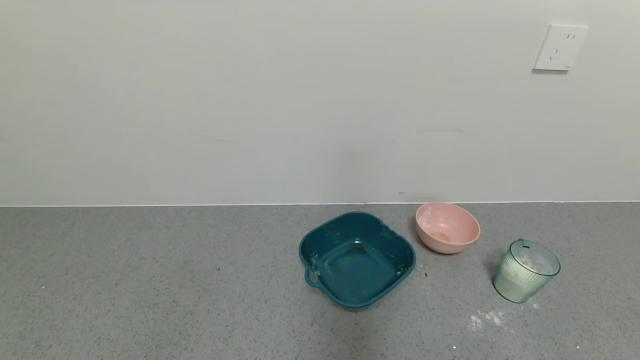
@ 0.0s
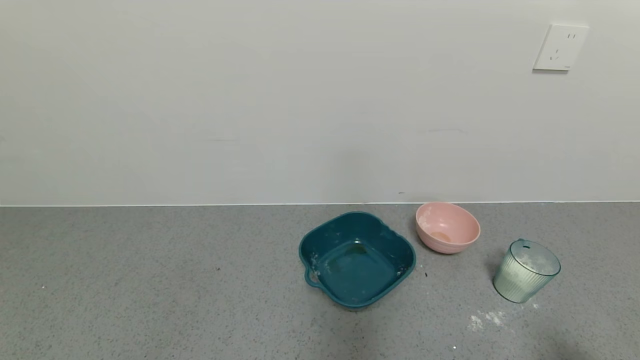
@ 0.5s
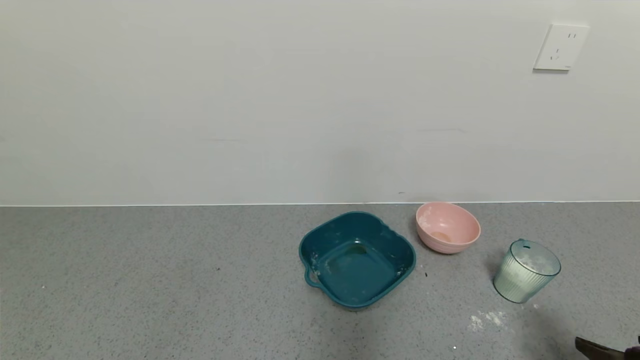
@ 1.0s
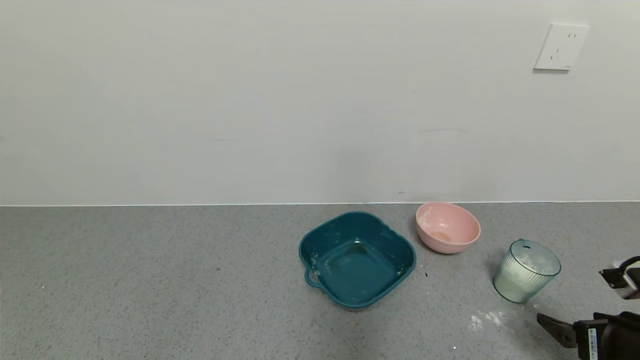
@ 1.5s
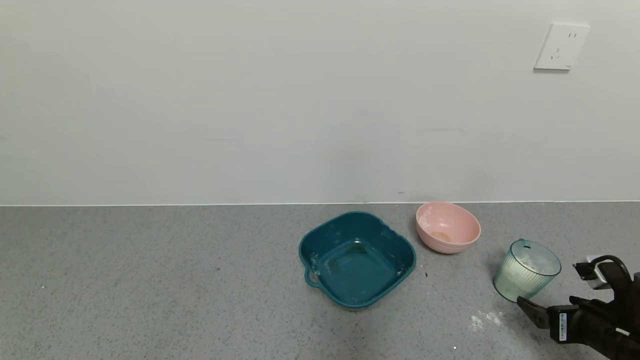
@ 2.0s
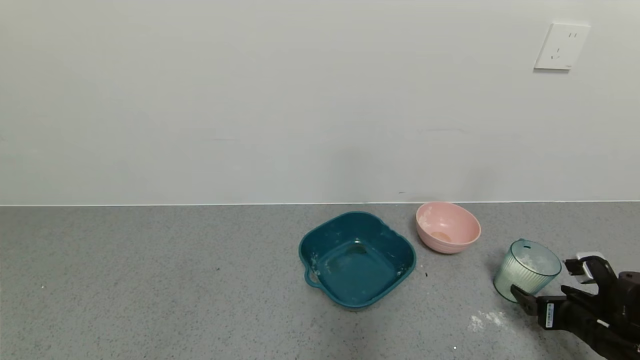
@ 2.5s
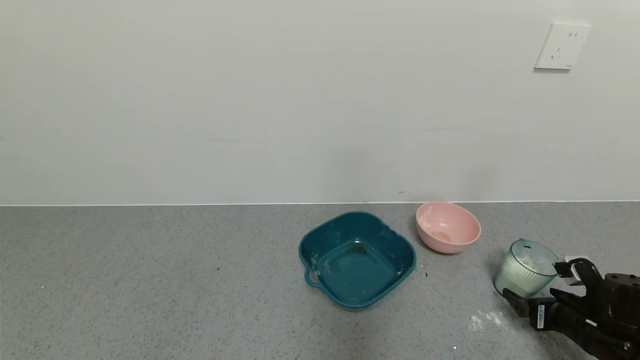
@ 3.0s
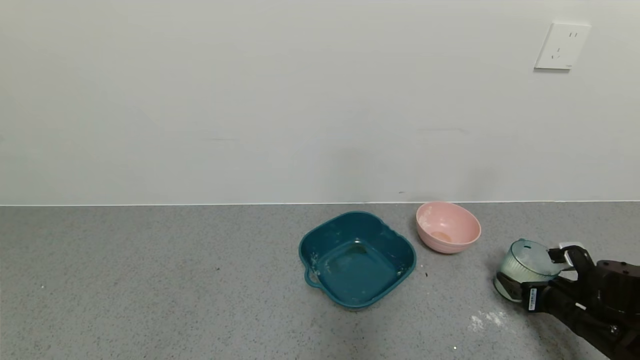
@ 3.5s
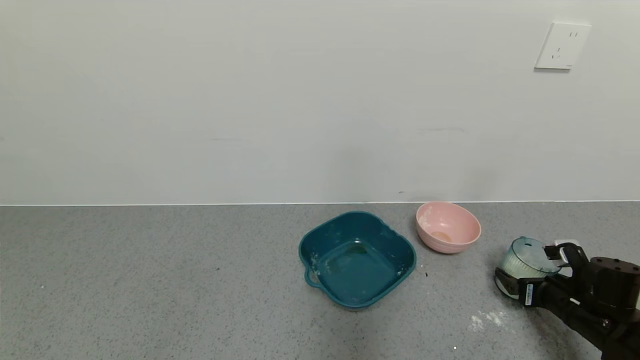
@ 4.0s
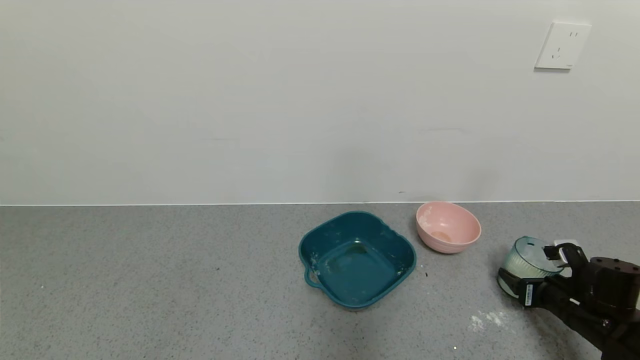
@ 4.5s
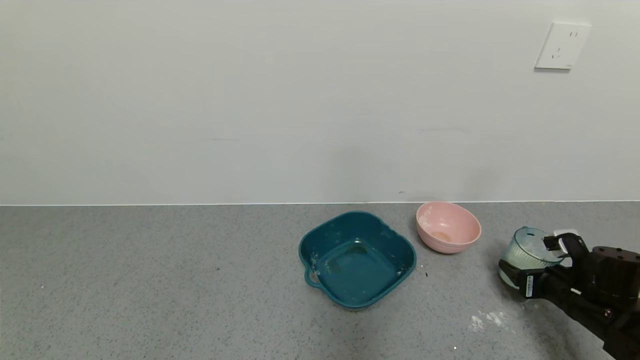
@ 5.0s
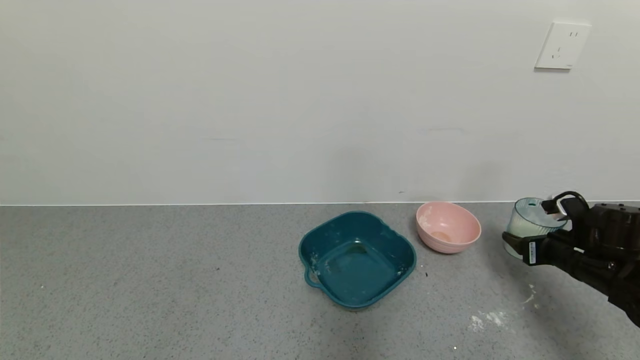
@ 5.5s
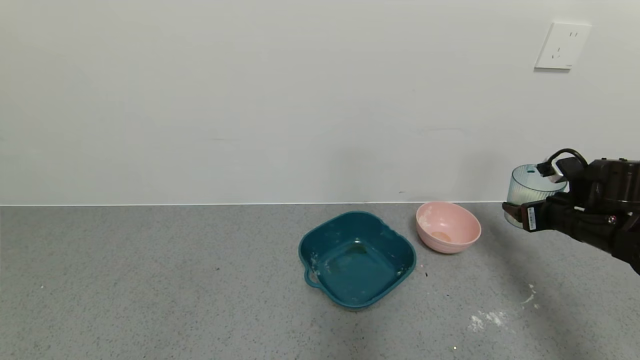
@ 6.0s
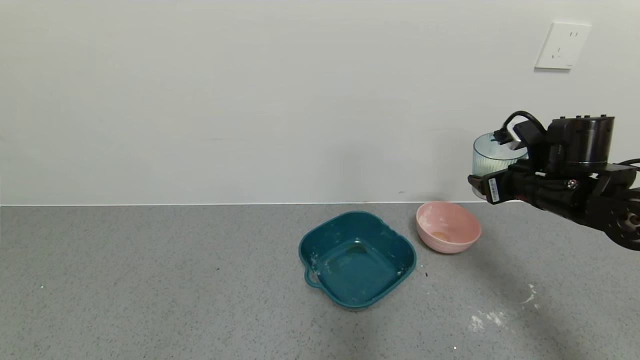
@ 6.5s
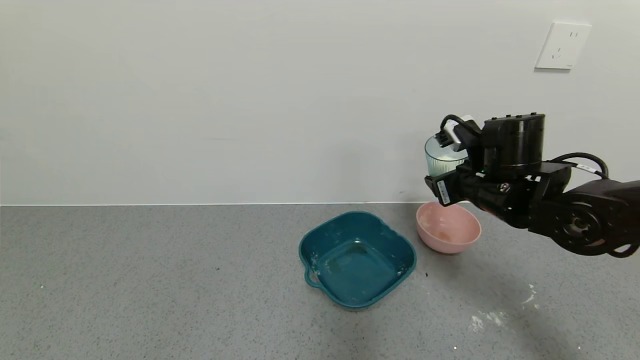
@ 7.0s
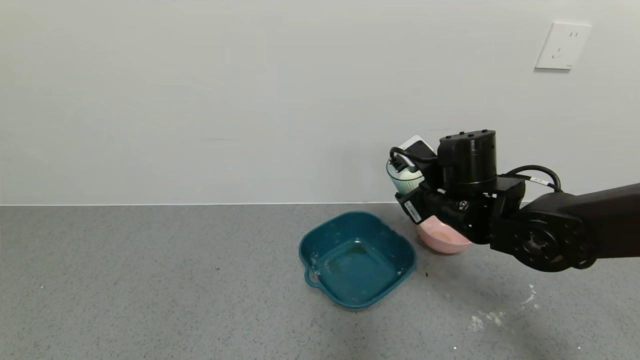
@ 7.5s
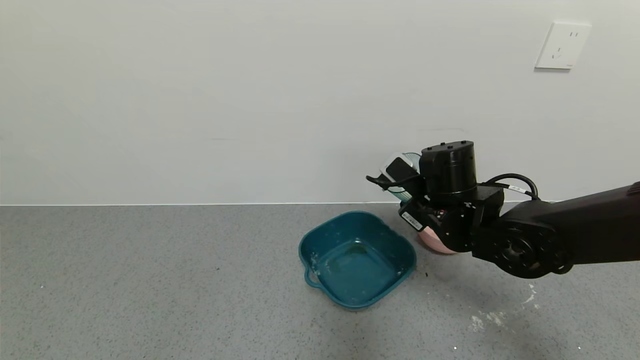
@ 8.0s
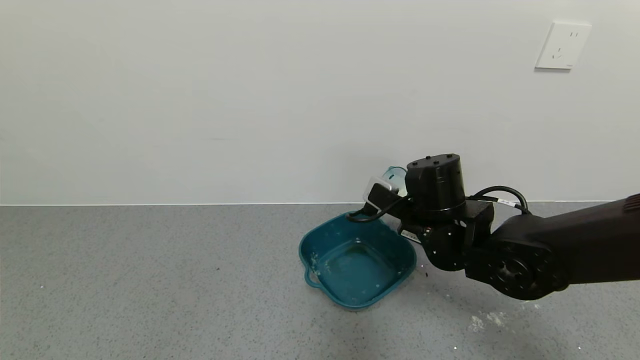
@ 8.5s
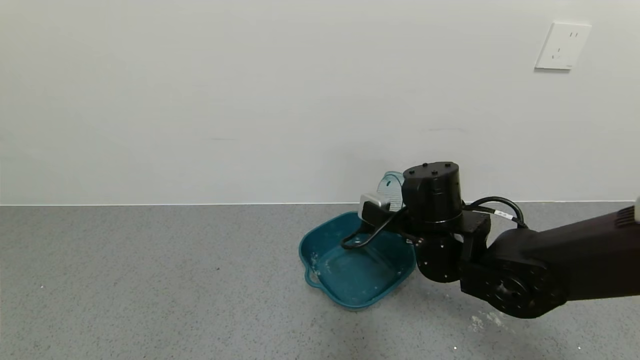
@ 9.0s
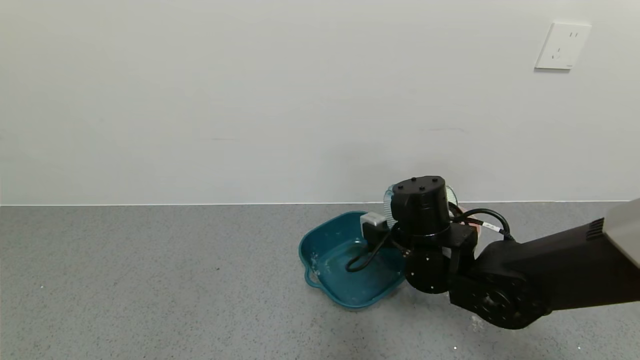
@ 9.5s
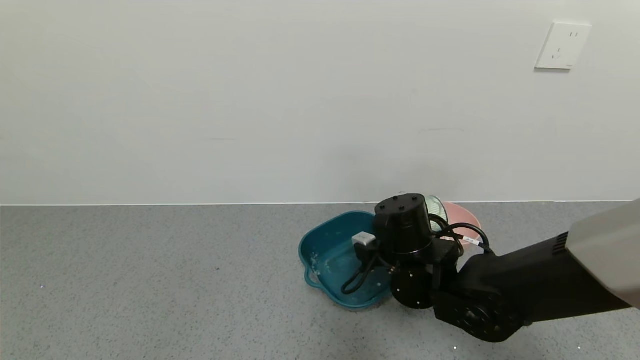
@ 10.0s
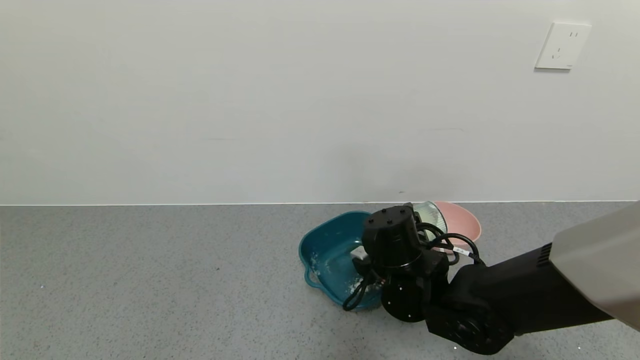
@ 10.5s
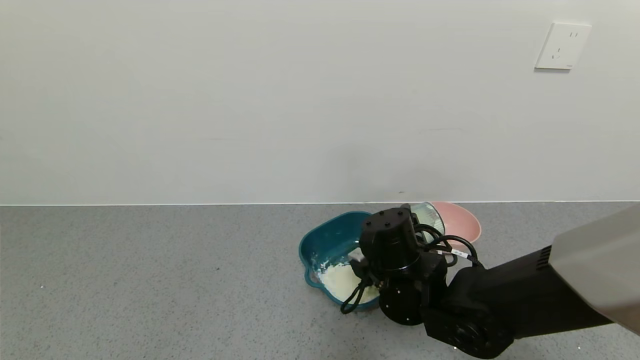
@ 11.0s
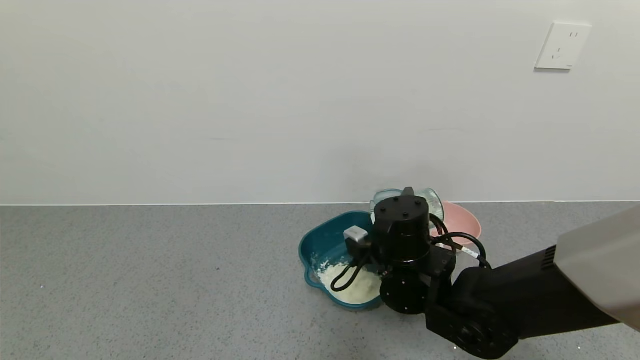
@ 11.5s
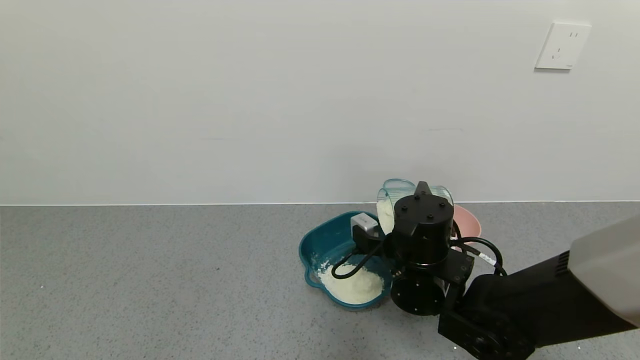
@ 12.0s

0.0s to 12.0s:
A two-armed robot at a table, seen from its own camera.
Task of the whole recording: use a gripper to pick up the cup and pour the powder into a bowl or tray.
Step, 0.0s to 4.0s: Grasp the glass of powder with the right gripper.
0.0s to 2.0s: The right gripper travels forward by approximately 20 cm.
2.0s to 4.0s: The right gripper heads forward, covering approximately 5 cm.
4.0s to 6.0s: The right gripper heads upward and forward, covering about 15 cm, and closes up.
6.0s to 8.0s: The right gripper moves to the left, roughly 25 cm.
8.0s to 10.0s: The right gripper is displaced downward by some 5 cm.
10.0s to 12.0s: There are only small adjustments of the grippers.

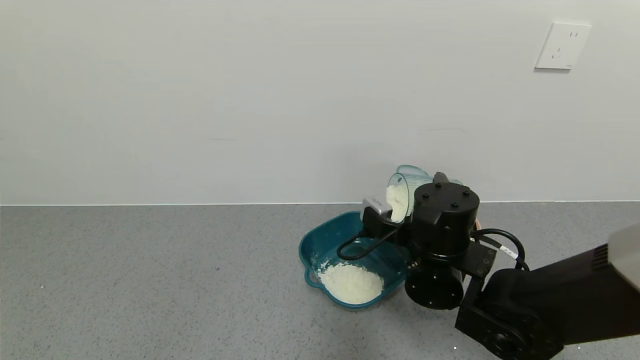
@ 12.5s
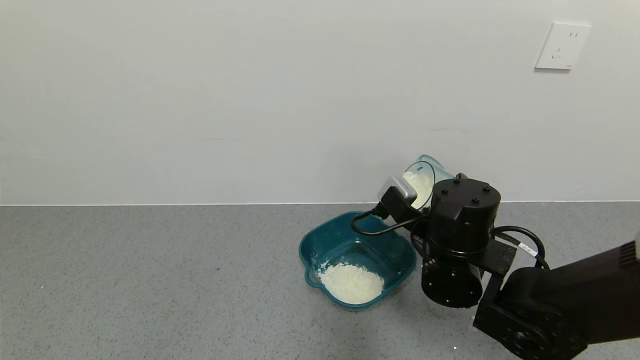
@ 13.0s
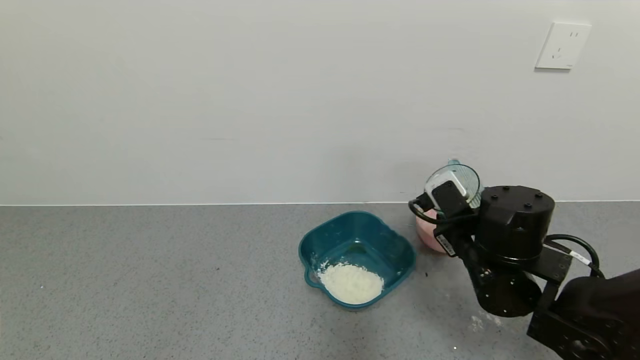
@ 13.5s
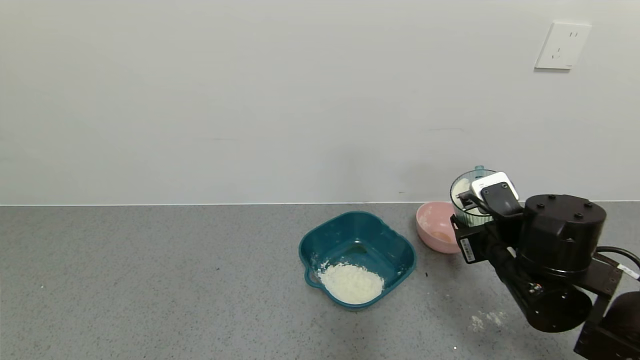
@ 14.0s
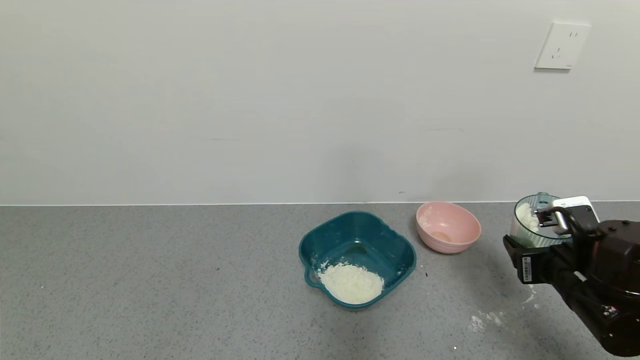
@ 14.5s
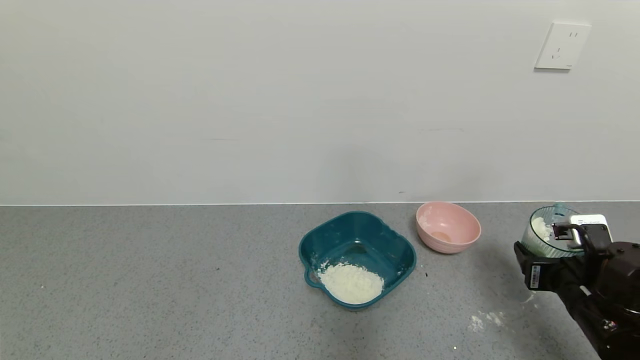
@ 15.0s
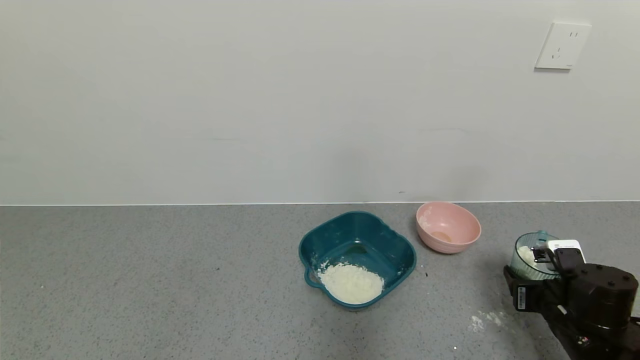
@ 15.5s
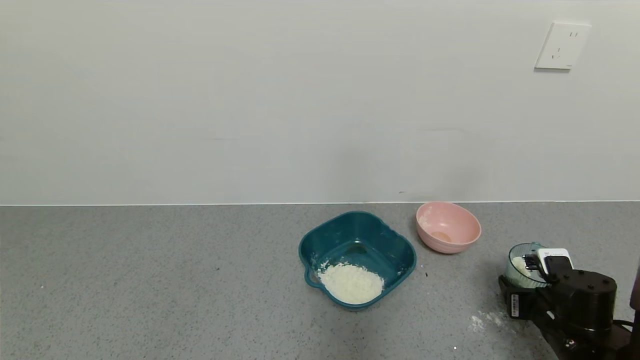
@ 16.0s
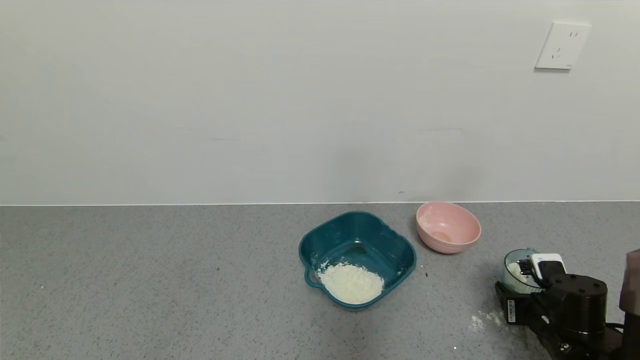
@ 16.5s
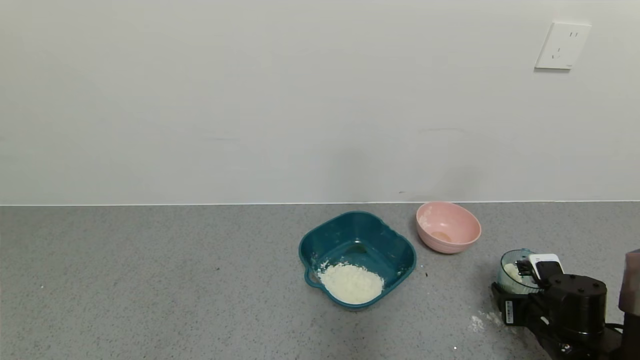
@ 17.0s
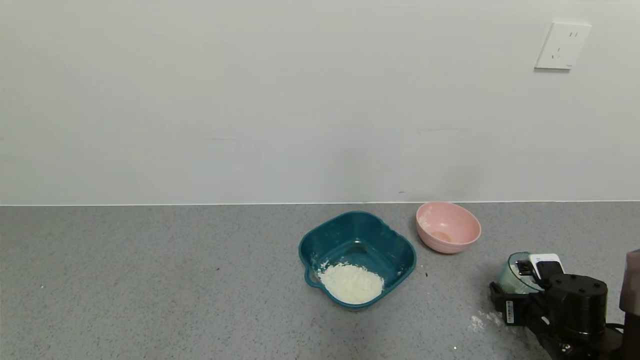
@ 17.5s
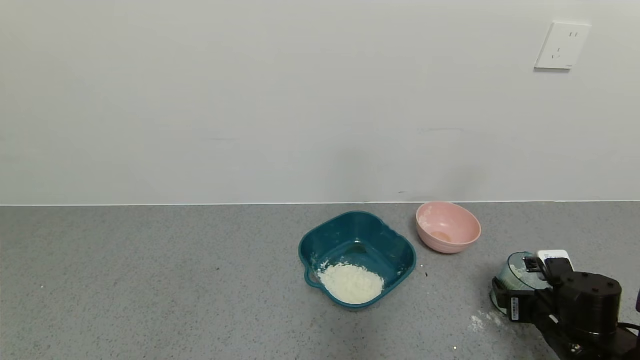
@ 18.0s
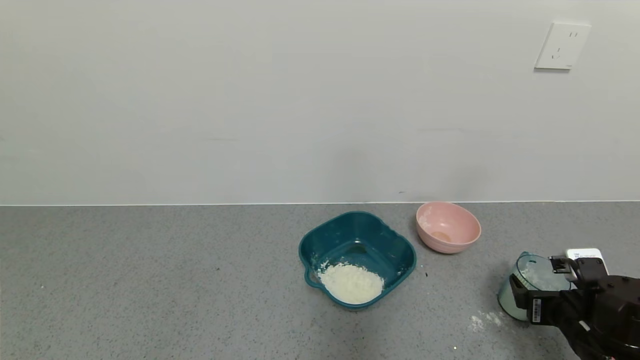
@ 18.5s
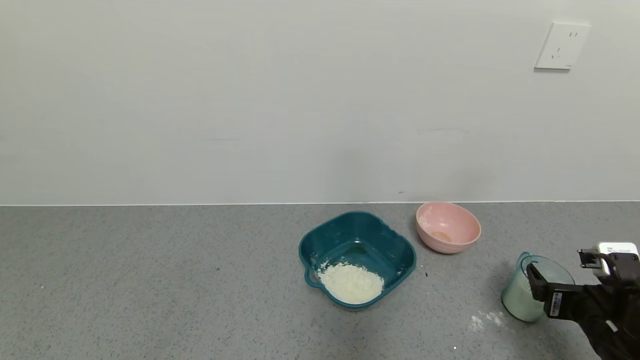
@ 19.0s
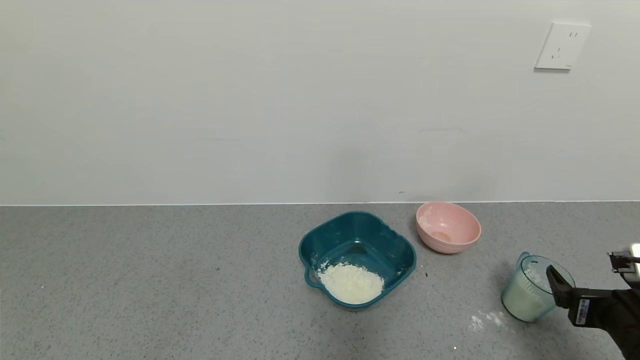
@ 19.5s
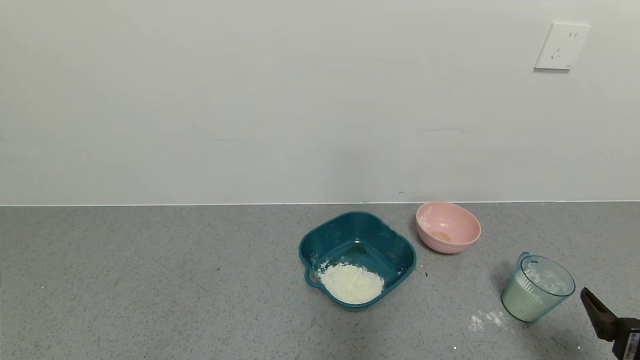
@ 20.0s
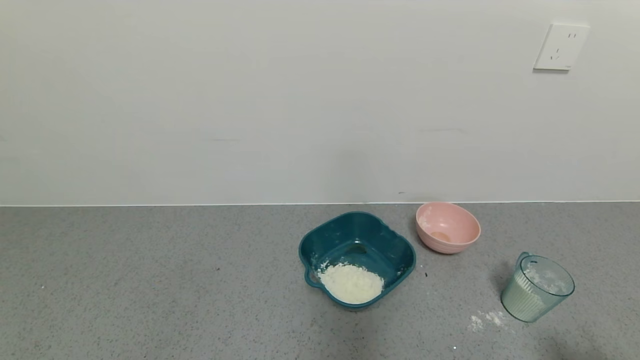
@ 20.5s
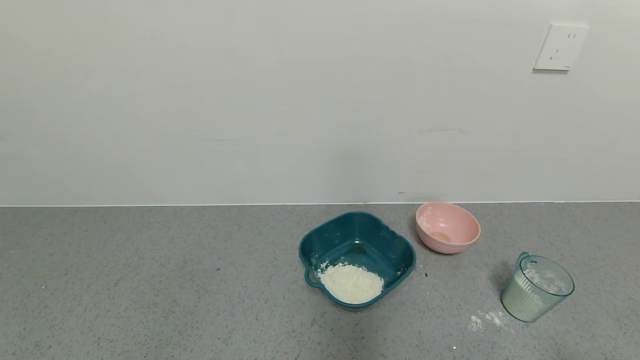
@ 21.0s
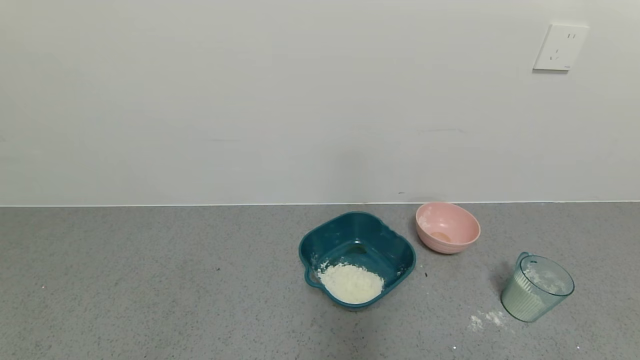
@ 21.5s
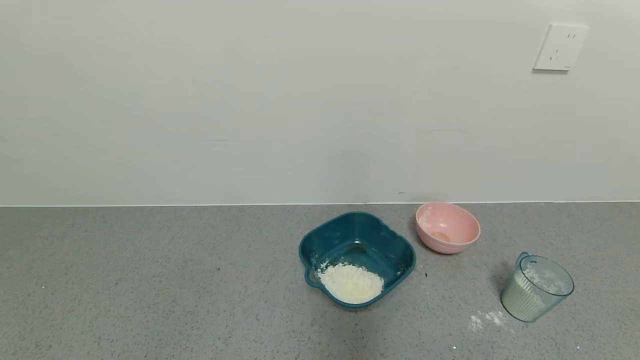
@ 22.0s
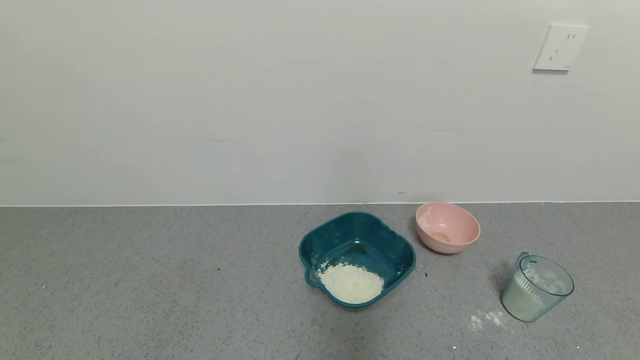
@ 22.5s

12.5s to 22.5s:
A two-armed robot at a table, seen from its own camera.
Task of the whole recording: use a gripper to pick up the cup and pour the powder into a bowl or tray.
Step, 12.5s to 18.5s: Place the glass cup down with the right gripper.
12.5s to 14.5s: The right gripper shifts some 20 cm to the right.
14.5s to 16.5s: The right gripper is displaced downward by some 10 cm.
16.5s to 18.5s: The right gripper moves roughly 5 cm, and opens up.
18.5s to 20.5s: The right gripper travels backward and upward by about 15 cm.
